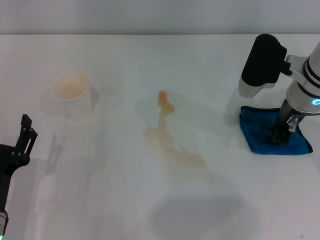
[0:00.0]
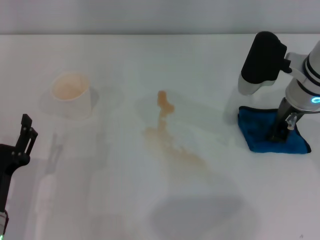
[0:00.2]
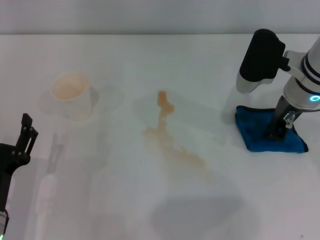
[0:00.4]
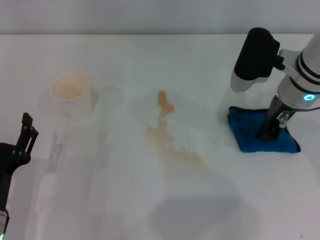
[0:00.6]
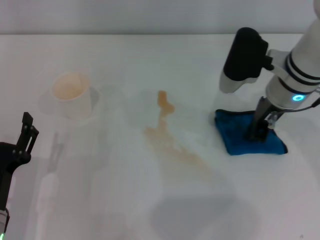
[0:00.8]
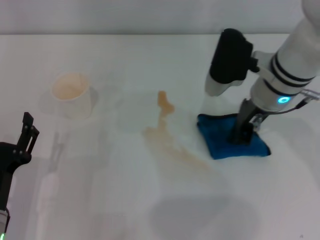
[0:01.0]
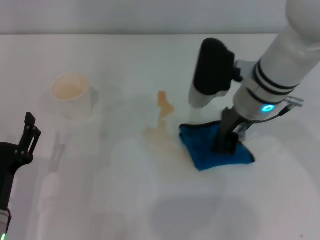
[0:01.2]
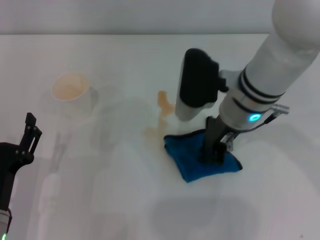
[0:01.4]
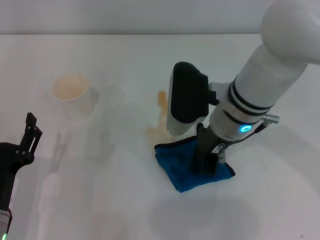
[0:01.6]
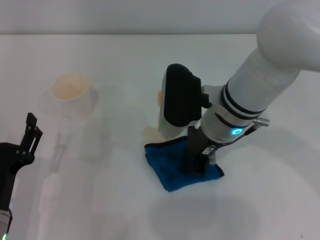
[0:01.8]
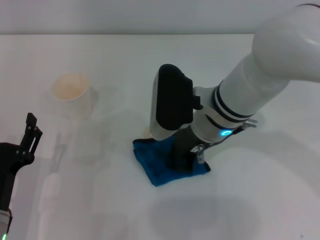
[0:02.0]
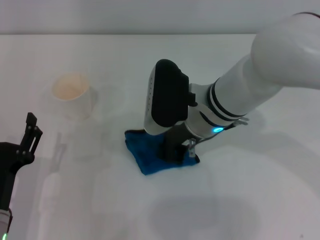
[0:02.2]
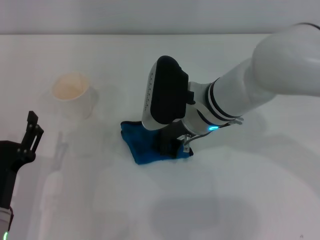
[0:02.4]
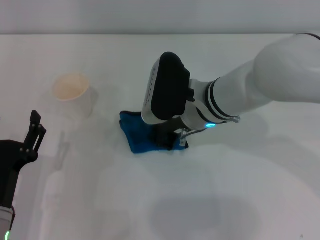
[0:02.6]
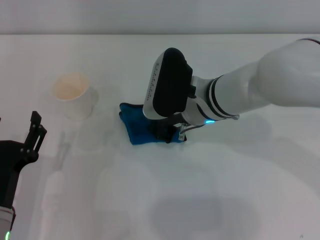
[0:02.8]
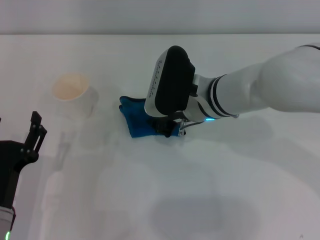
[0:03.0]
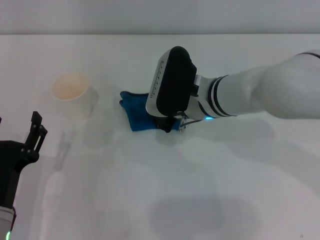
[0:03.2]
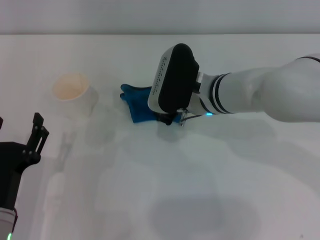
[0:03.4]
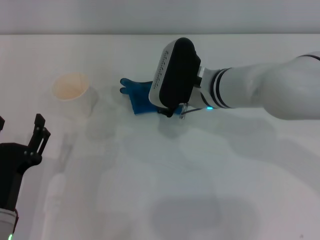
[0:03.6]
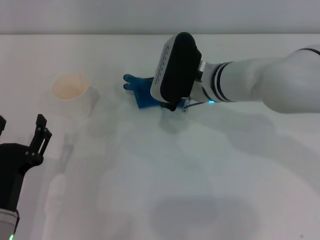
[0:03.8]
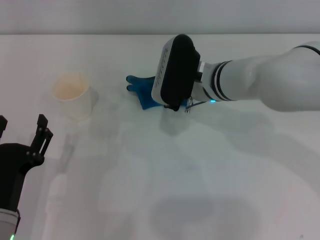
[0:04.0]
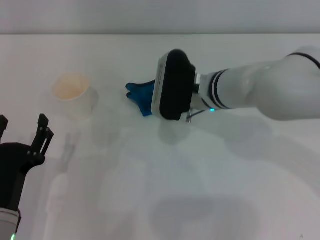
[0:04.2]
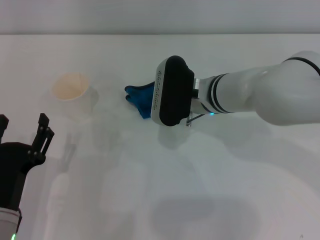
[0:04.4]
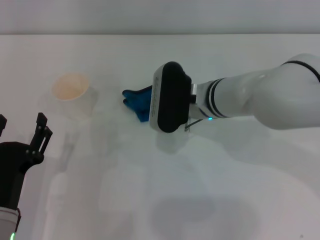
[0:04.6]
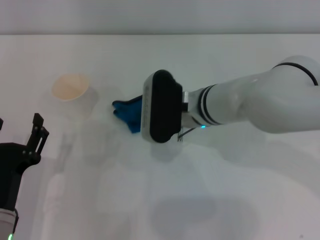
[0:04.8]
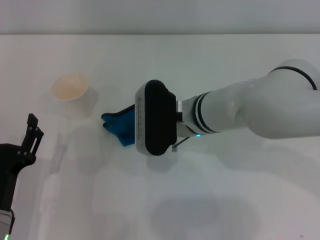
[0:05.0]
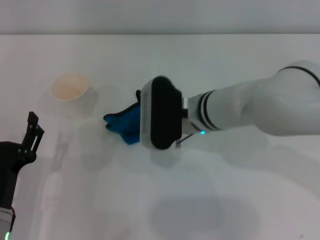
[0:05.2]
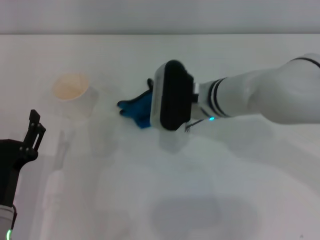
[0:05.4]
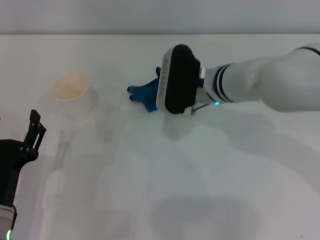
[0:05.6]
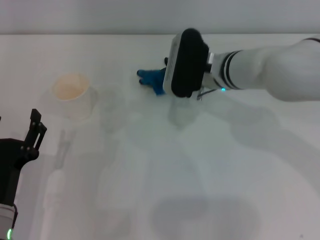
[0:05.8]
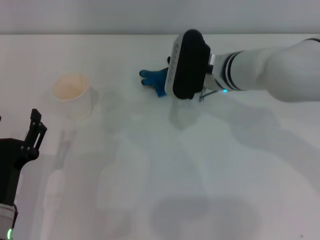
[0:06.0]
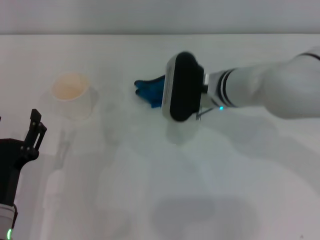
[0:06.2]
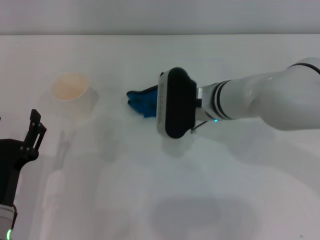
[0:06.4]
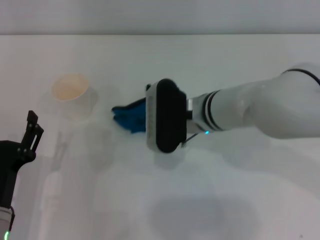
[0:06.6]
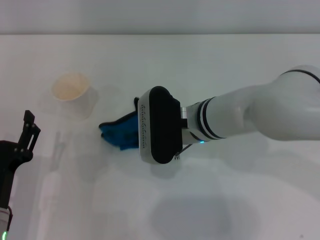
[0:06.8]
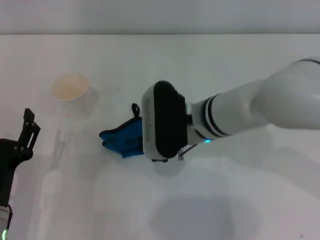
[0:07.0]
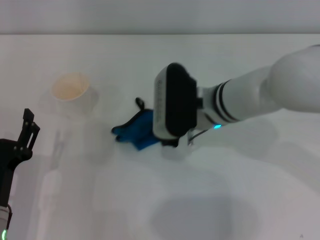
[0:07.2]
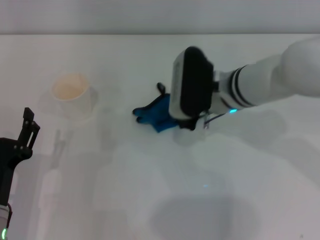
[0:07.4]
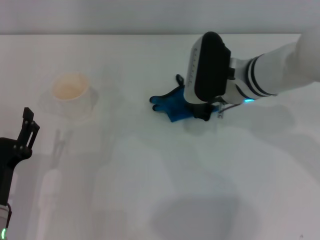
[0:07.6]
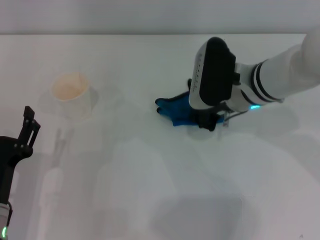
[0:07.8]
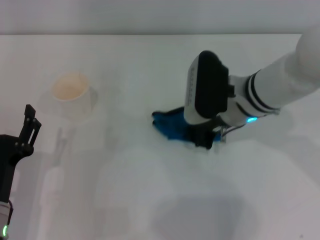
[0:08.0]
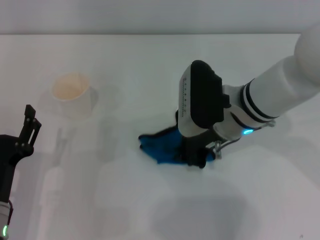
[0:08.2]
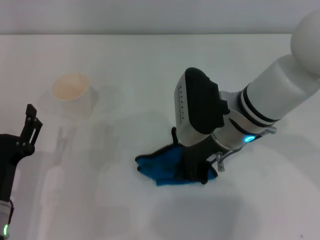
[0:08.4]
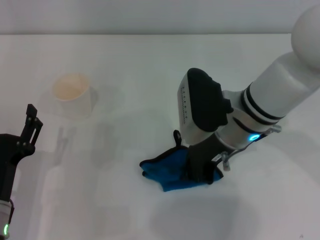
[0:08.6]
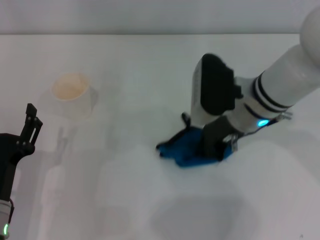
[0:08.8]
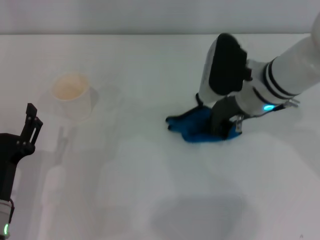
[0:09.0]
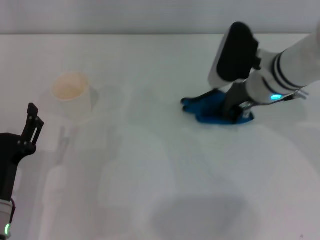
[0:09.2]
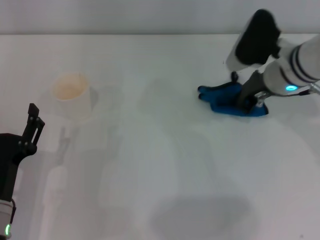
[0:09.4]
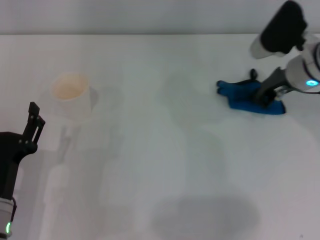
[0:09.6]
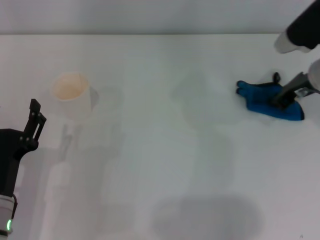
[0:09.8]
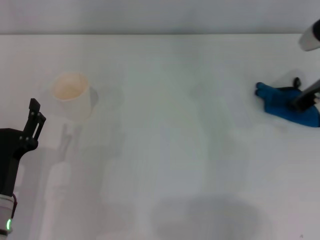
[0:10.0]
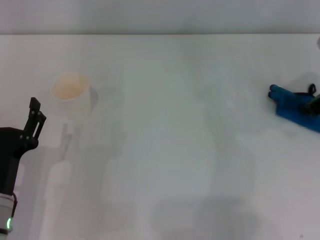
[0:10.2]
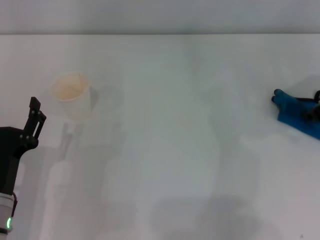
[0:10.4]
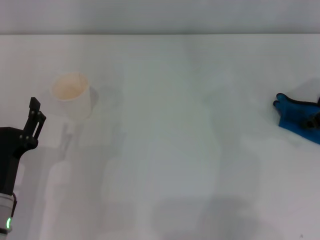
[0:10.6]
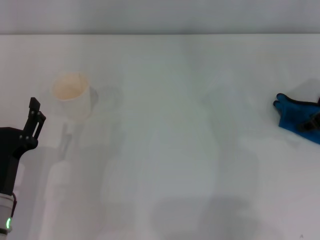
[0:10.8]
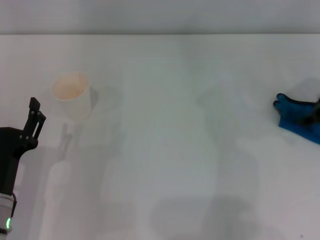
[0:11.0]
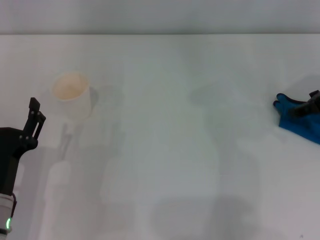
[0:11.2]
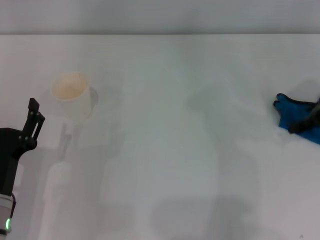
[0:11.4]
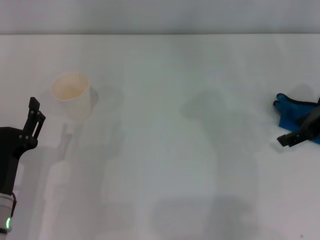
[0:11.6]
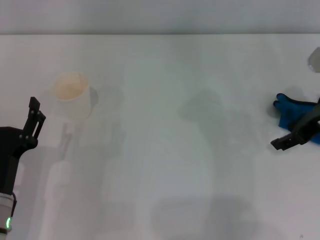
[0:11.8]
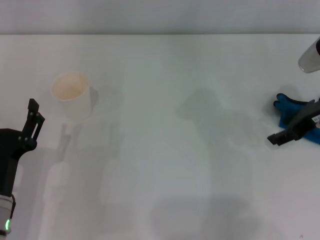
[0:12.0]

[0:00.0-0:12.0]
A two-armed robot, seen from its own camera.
0:00.0 to 0:01.6: The right gripper shifts about 10 cm to the left, and closes.
0:03.0 to 0:06.0: The grippers move only a little.
0:06.0 to 0:07.6: The right gripper goes backward and returns, roughly 10 cm each way.
0:09.0 to 0:10.4: The right gripper is displaced to the right by some 15 cm.
0:10.4 to 0:12.0: The right gripper opens.

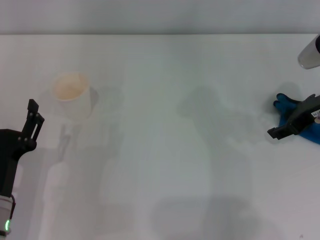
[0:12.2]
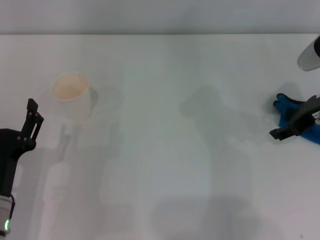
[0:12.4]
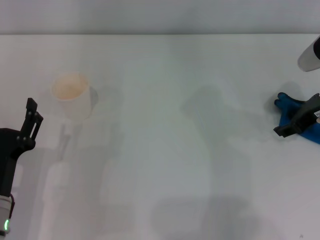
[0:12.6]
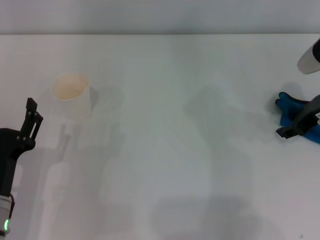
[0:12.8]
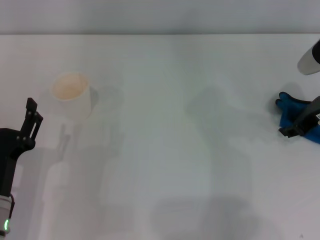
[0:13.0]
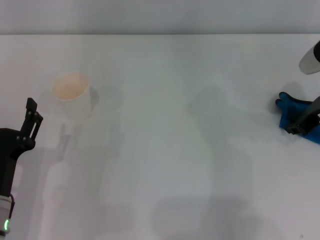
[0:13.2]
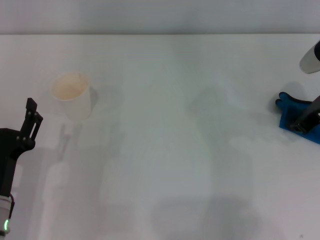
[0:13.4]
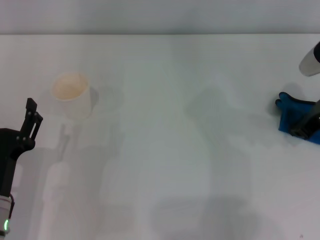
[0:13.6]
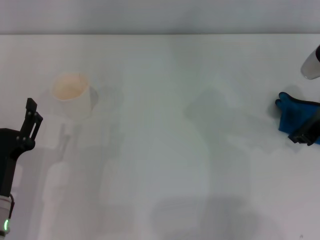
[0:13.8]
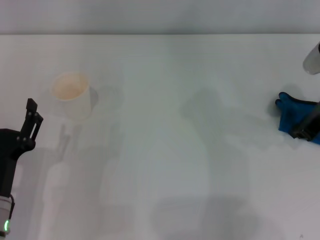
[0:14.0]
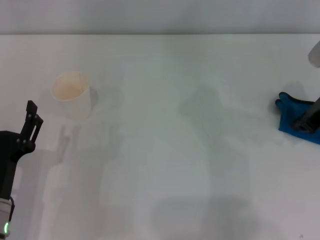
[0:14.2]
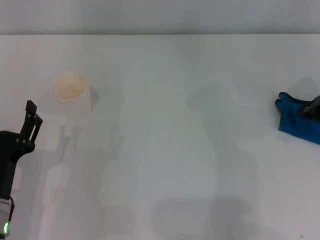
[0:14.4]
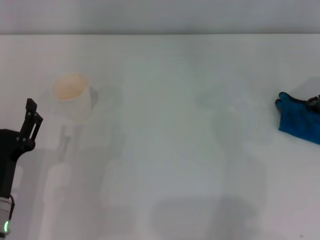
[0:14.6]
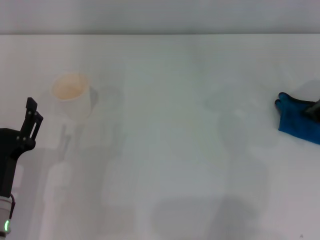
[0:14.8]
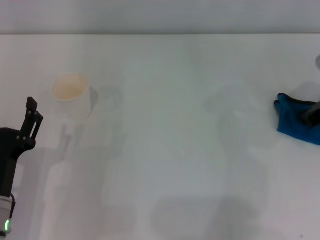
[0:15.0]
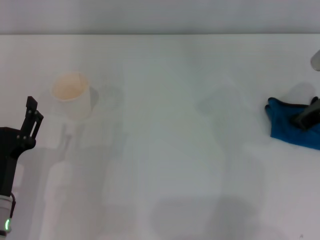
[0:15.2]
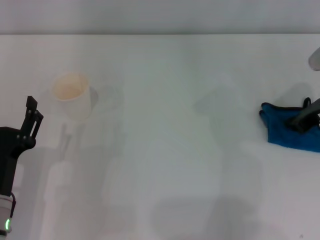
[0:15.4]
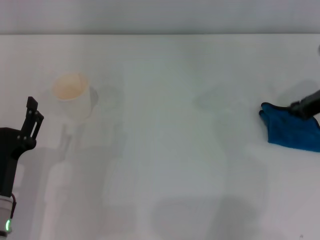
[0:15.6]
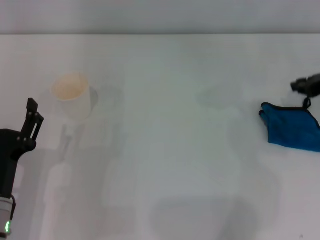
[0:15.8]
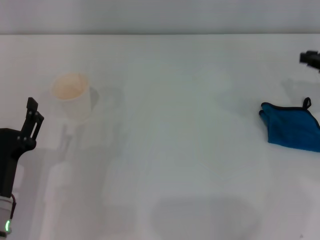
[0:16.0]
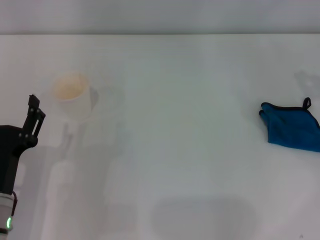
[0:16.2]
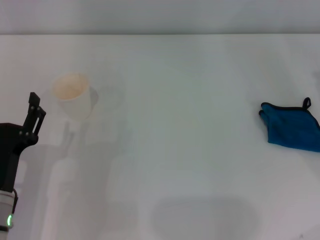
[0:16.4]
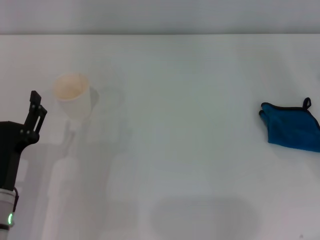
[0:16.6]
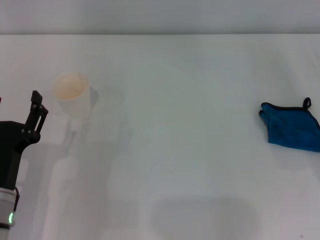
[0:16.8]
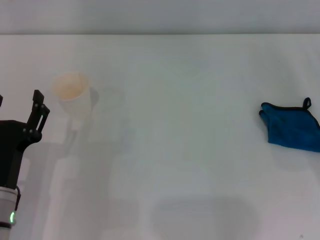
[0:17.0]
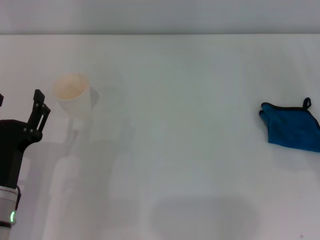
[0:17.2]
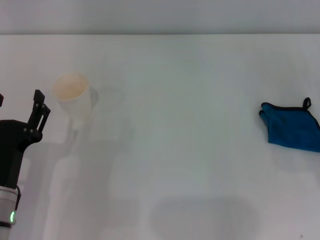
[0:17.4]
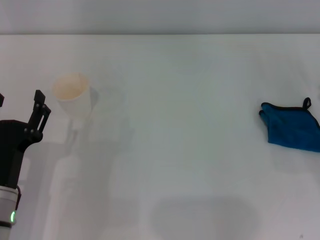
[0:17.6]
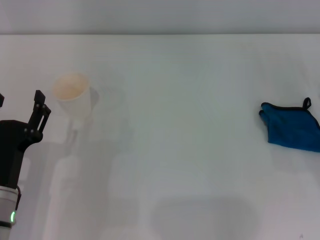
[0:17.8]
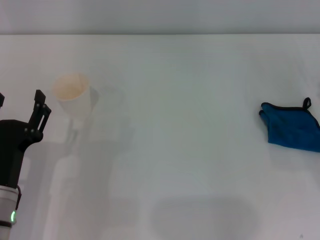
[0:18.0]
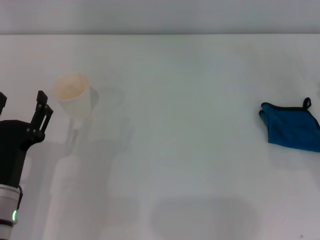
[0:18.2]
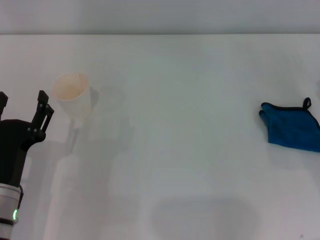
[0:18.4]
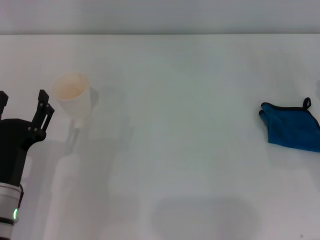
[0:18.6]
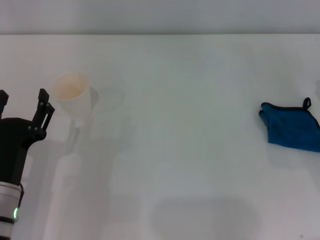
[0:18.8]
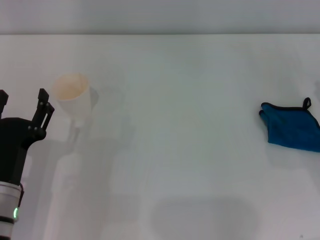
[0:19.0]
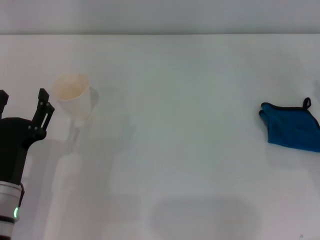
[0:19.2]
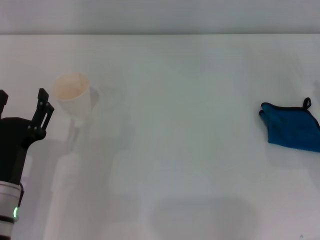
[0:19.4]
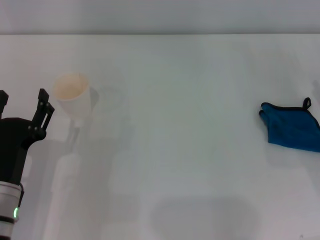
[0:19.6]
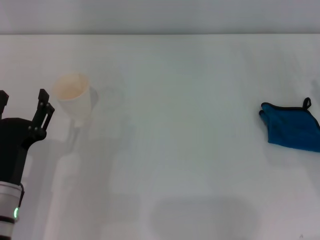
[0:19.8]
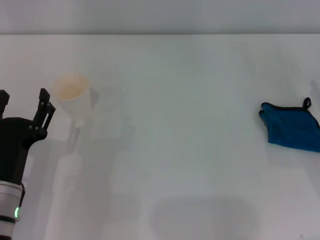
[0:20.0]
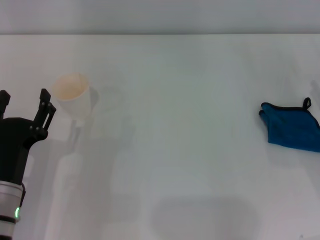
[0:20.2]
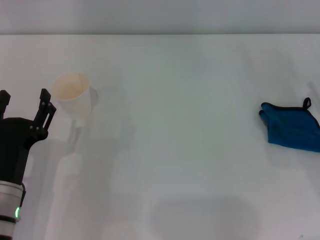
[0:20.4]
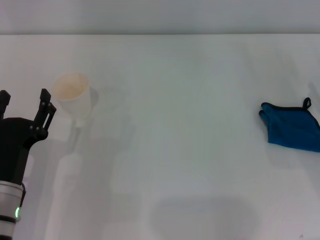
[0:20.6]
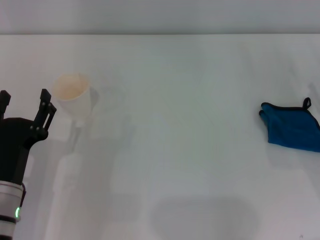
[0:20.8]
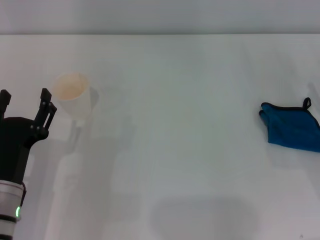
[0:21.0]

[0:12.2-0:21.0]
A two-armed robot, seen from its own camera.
Step, 0:12.2 to 0:14.6: Wipe the stains off the table with the right gripper.
Step, 0:14.8 to 0:15.4: Place the rag on the table with the right gripper.
0:12.2 to 0:13.6: The right gripper closes up.
0:13.6 to 0:15.2: The grippers make only small movements.
0:15.2 to 0:16.6: The right gripper goes approximately 10 cm backward and to the right.
0:18.0 to 0:19.6: Neither gripper changes place.
0:19.6 to 0:21.0: Both grippers stay put.
